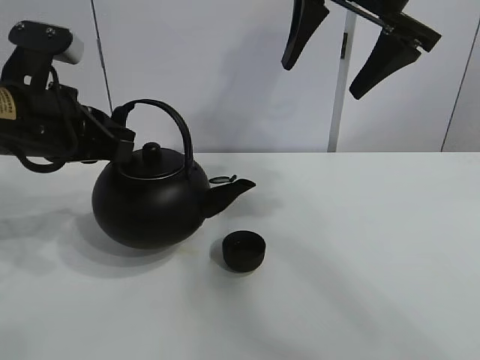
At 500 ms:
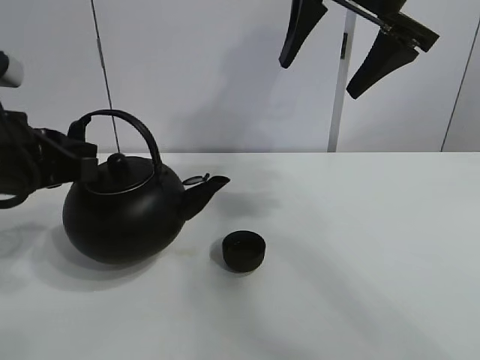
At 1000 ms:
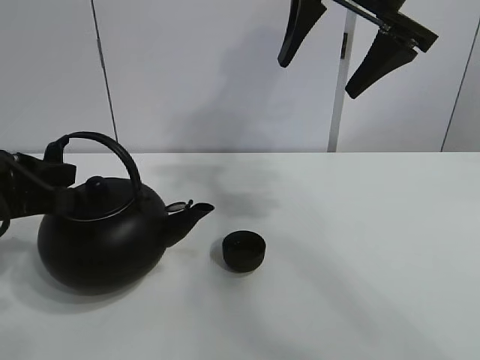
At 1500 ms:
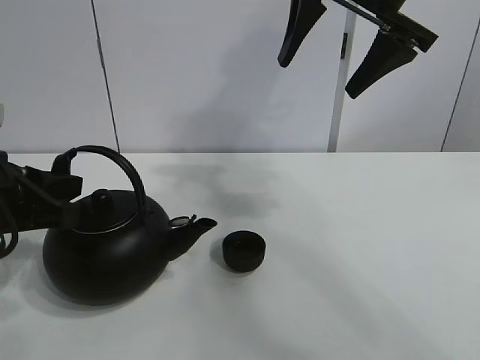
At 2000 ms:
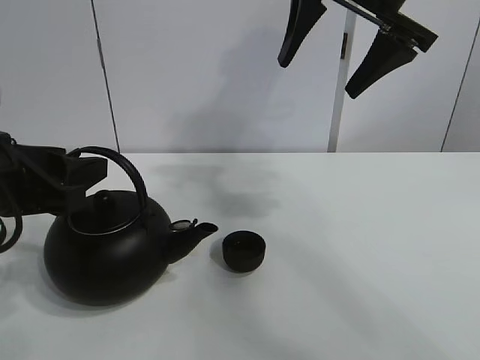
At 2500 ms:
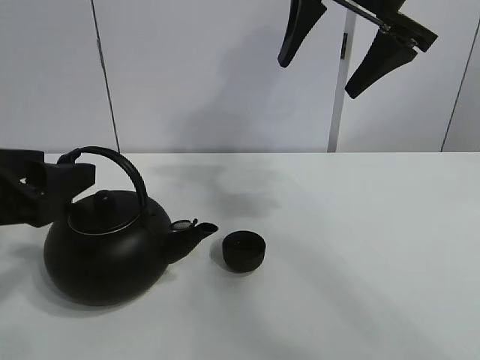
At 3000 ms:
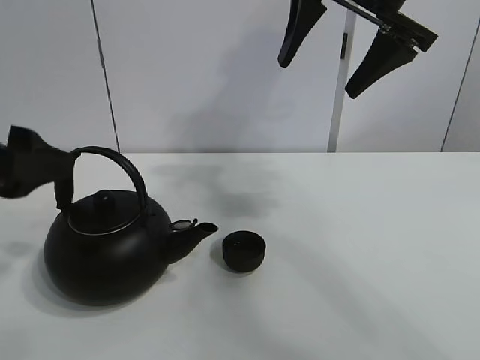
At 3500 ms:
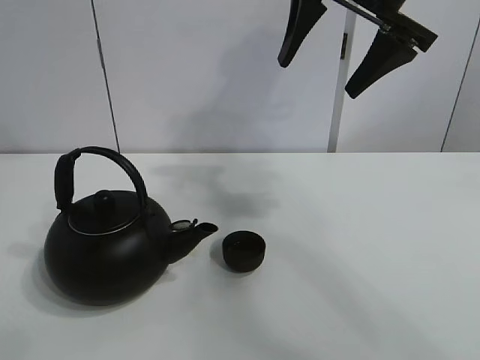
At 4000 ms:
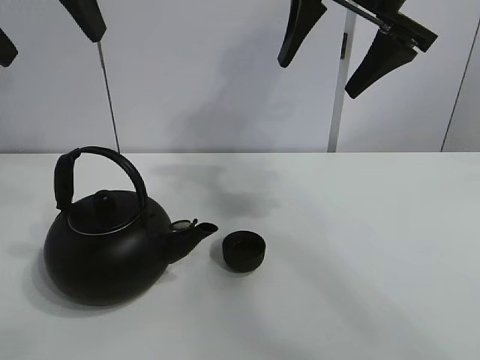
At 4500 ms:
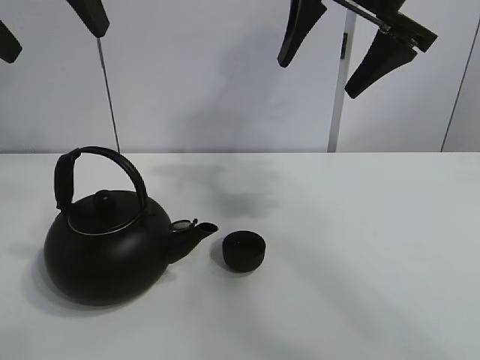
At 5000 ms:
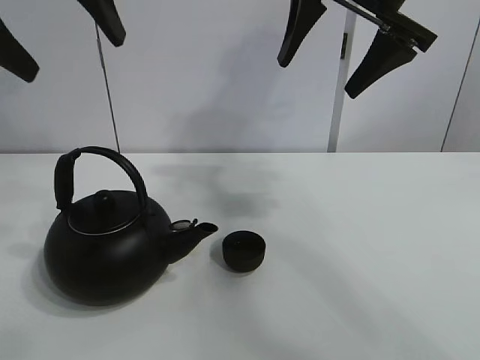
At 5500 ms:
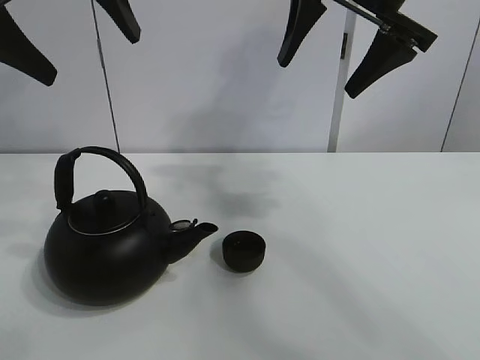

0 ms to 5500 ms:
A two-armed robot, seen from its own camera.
Task of the whole recording: pour tea into the teacup.
0 ms to 2000 ms: The left gripper is displaced backward by some 5 cm, and opens.
2000 ms to 3500 ms: The left gripper is displaced upward by approximately 25 cm, and opens up.
3500 ms to 5500 ms: The left gripper ends up some 10 cm from where it was.
